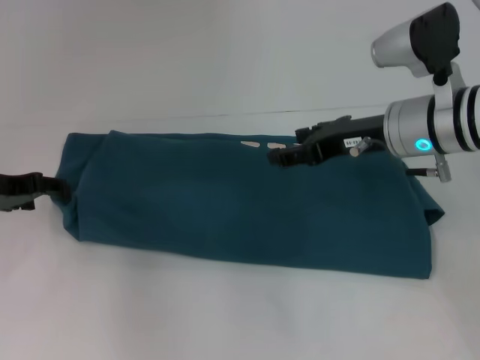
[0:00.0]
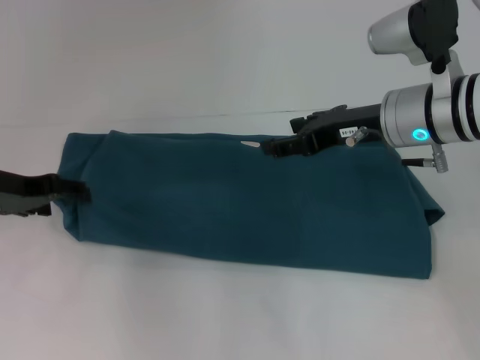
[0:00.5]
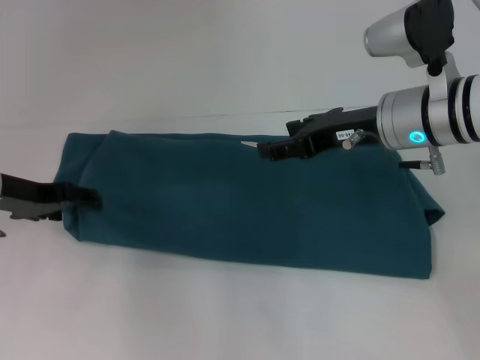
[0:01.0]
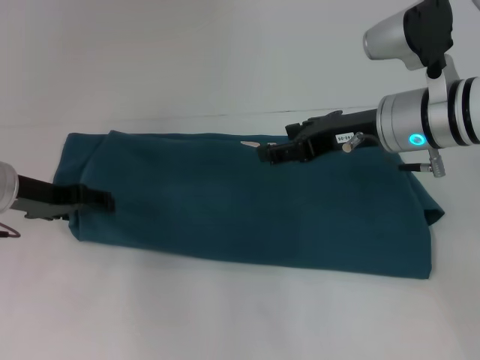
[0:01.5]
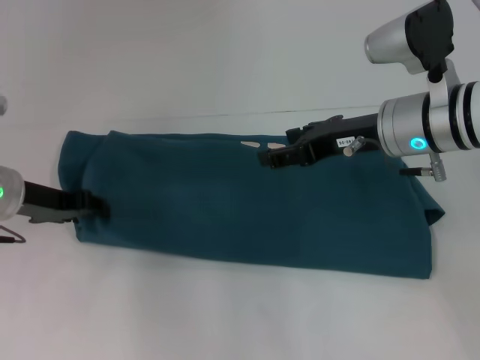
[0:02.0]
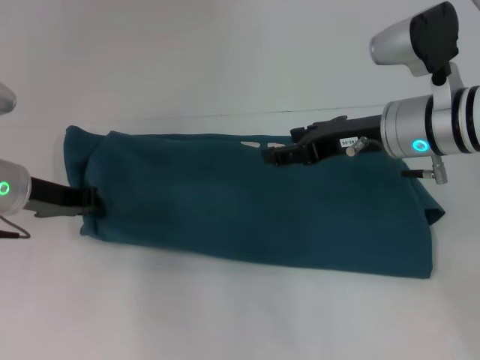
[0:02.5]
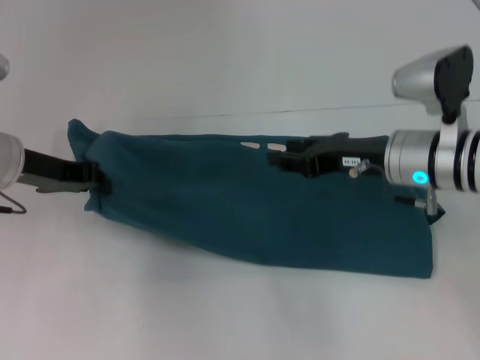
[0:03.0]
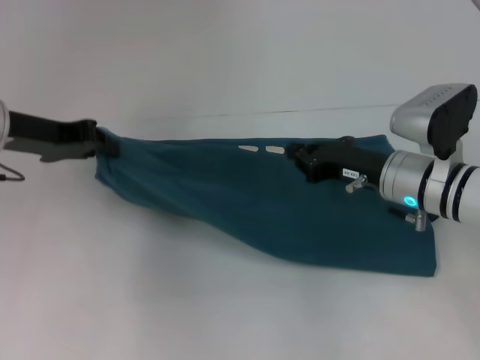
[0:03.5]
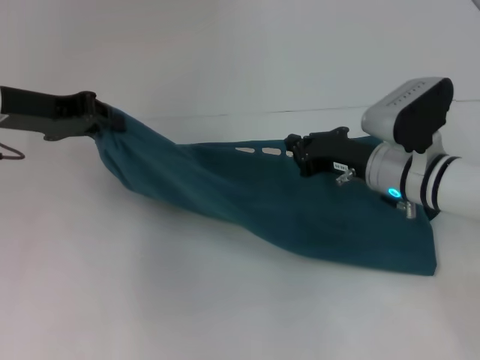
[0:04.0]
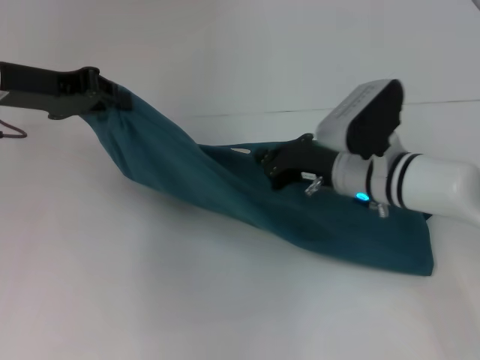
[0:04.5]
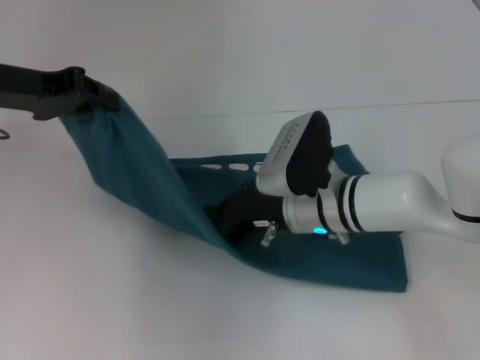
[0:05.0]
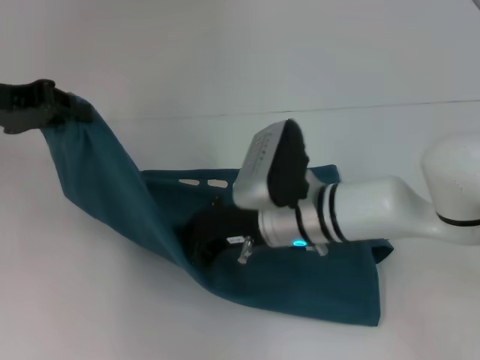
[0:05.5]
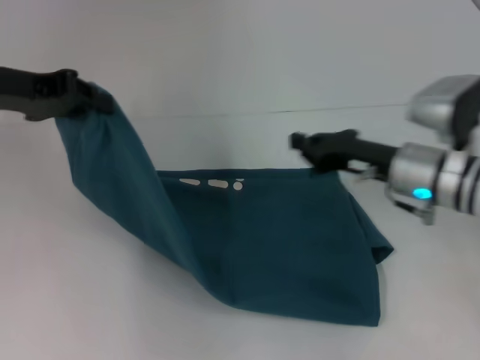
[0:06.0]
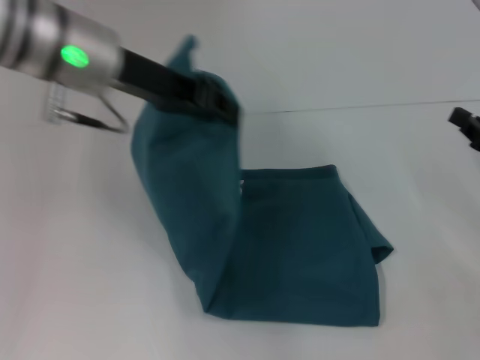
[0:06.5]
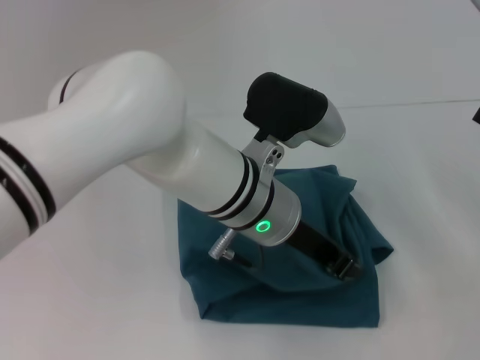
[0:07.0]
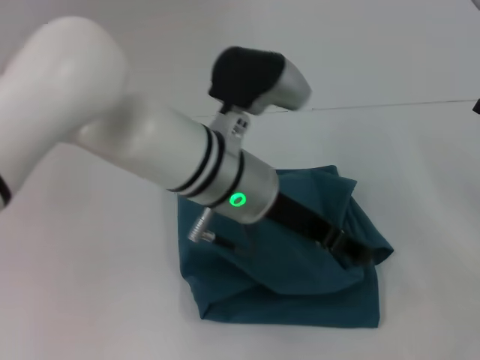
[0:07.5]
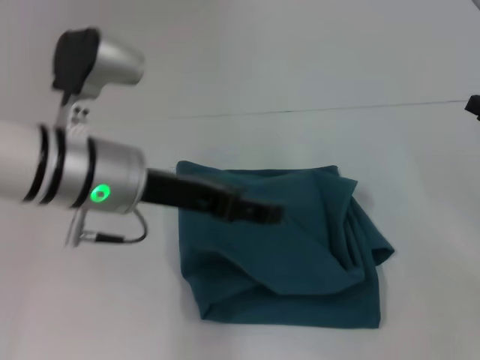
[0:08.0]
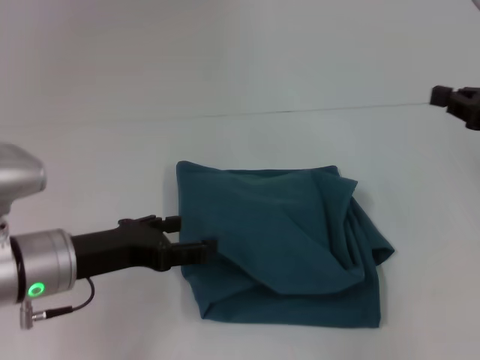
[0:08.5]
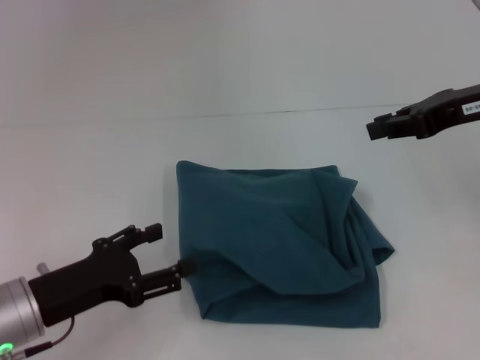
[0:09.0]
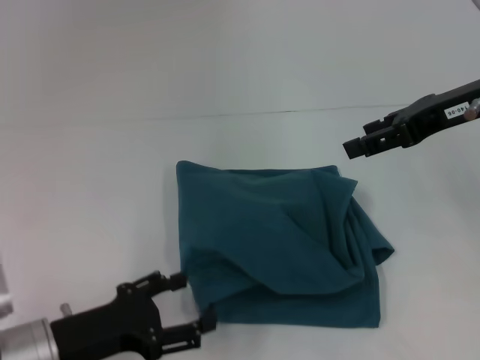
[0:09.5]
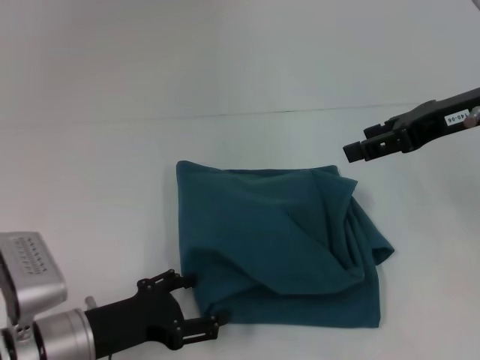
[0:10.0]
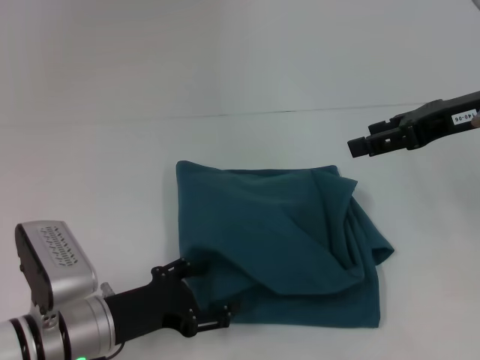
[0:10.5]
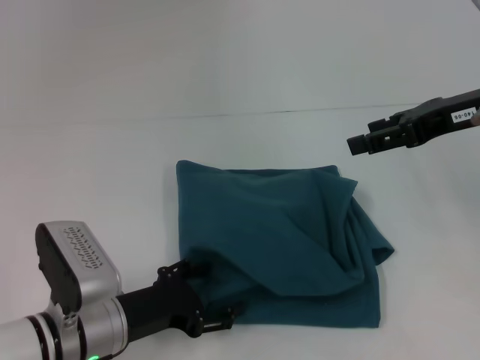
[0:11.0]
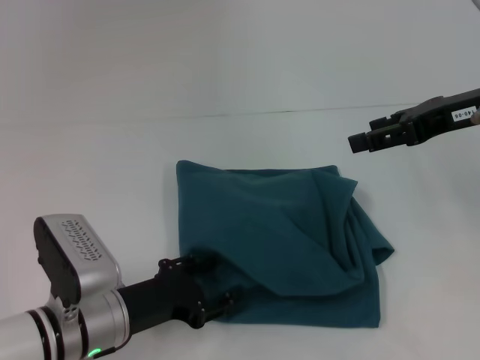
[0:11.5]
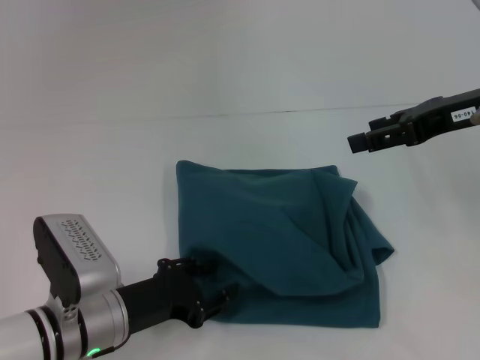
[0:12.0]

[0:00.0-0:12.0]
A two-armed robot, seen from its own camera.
Step, 0:00.0 to 0:05.0: Press the middle of the clothes with your right hand.
Step, 0:05.5 to 0:07.5: Fold the clothes to the left.
0:00.0 to 0:02.0: The grippers move only a little.
0:02.0 to 0:04.0: The left gripper heads upward, covering some 10 cm, and closes up. The right gripper heads downward, covering about 10 cm, and closes up.
0:04.0 to 0:06.0: The right gripper reaches roughly 10 cm to the left, then returns.
0:06.0 to 0:08.0: The right gripper goes about 15 cm to the right; the left gripper heads to the right and backward, covering approximately 15 cm, and opens up.
0:08.0 to 0:10.0: The left gripper heads downward, backward and to the left, covering roughly 20 cm; the right gripper is displaced upward, to the left and forward by approximately 15 cm, and opens up.
0:10.0 to 0:12.0: The left gripper closes up.

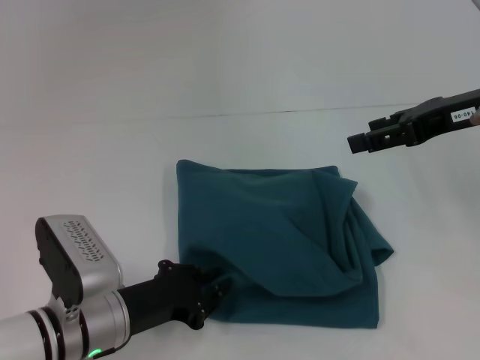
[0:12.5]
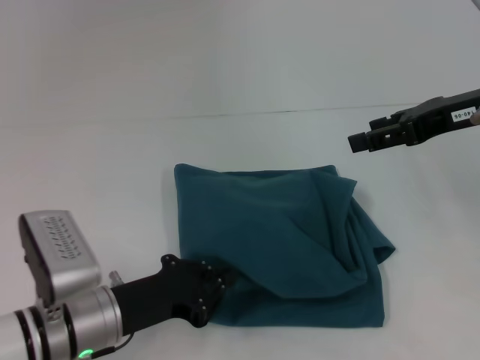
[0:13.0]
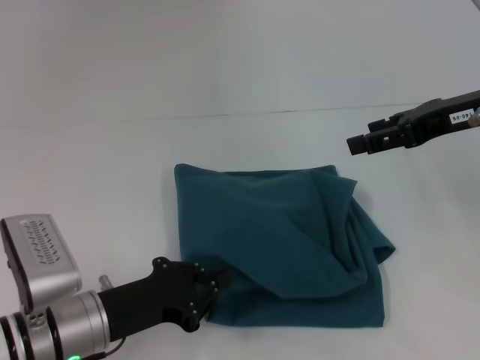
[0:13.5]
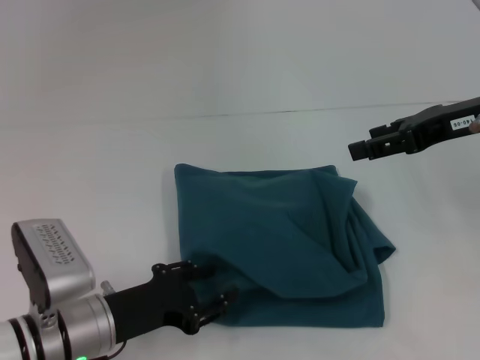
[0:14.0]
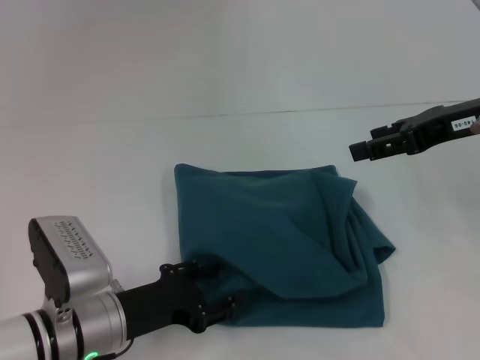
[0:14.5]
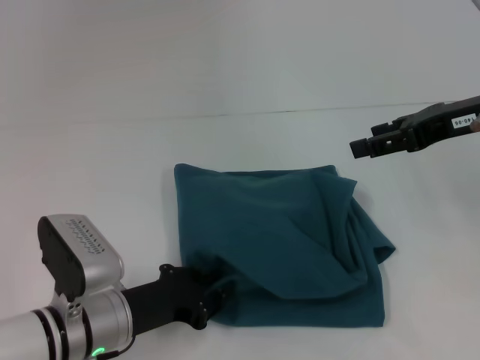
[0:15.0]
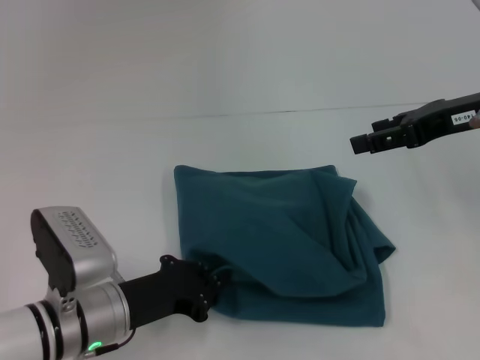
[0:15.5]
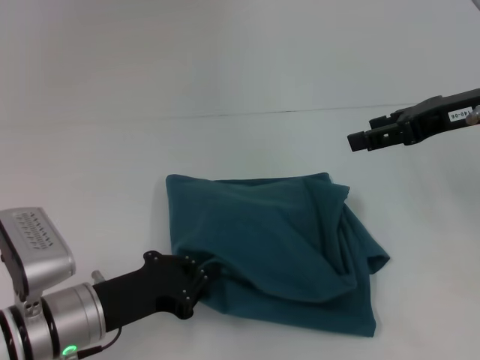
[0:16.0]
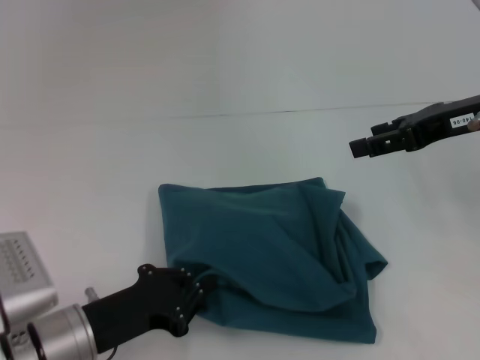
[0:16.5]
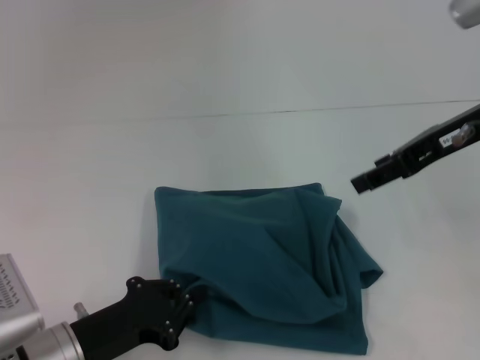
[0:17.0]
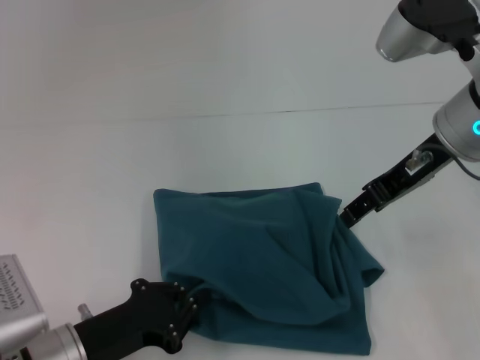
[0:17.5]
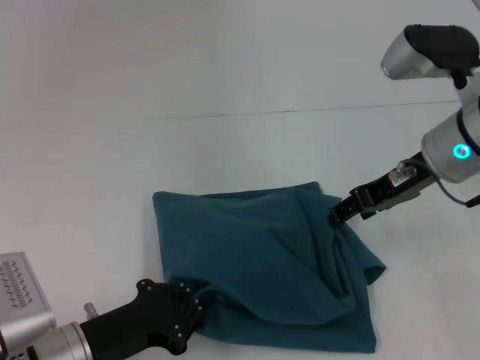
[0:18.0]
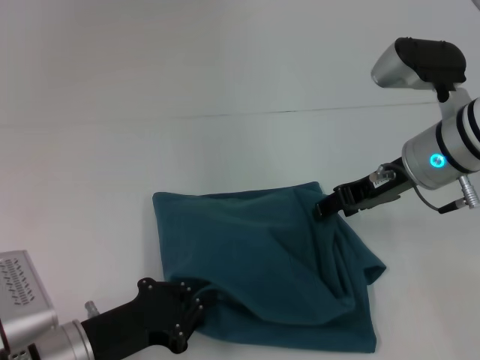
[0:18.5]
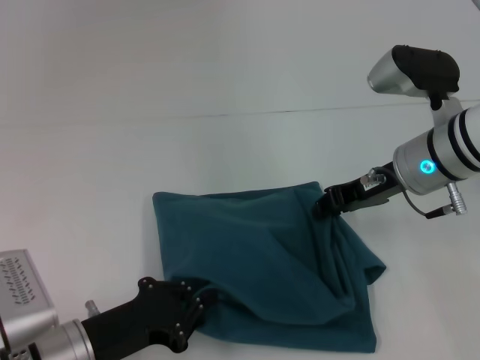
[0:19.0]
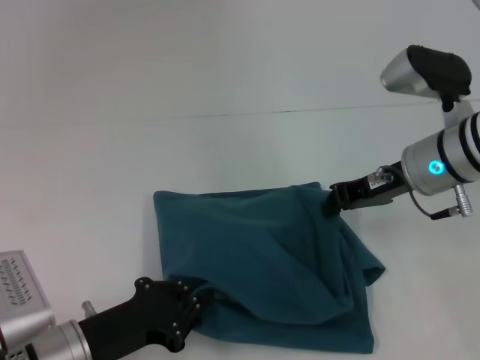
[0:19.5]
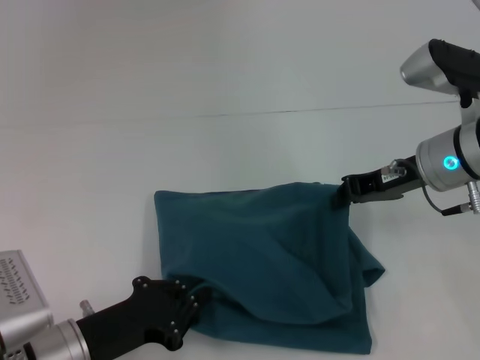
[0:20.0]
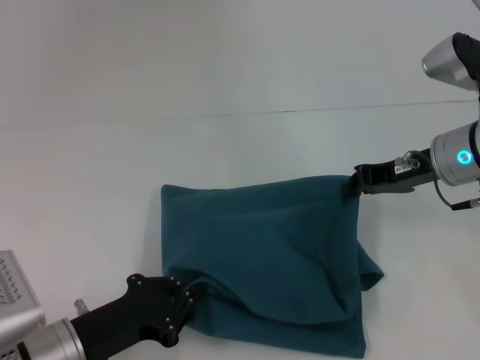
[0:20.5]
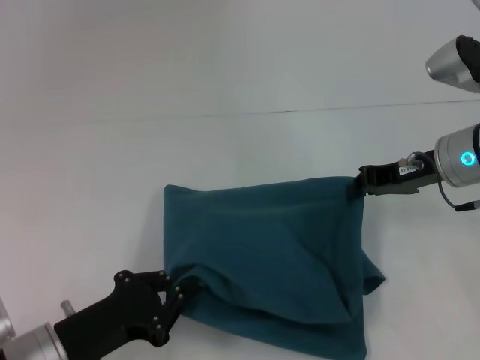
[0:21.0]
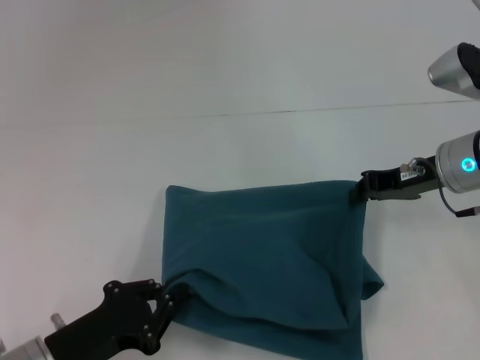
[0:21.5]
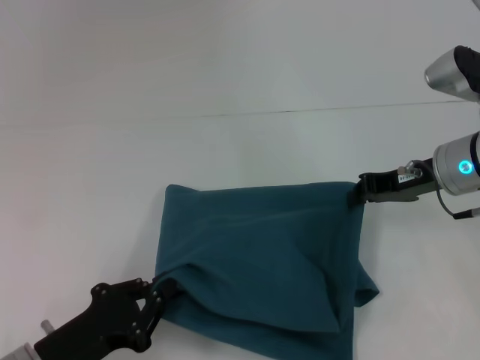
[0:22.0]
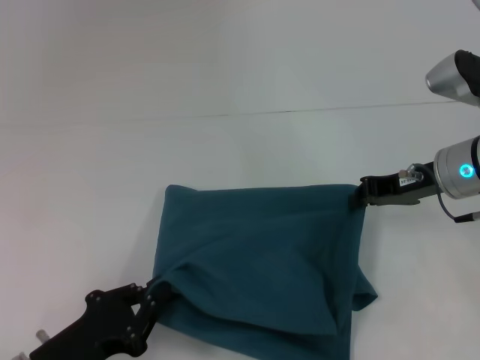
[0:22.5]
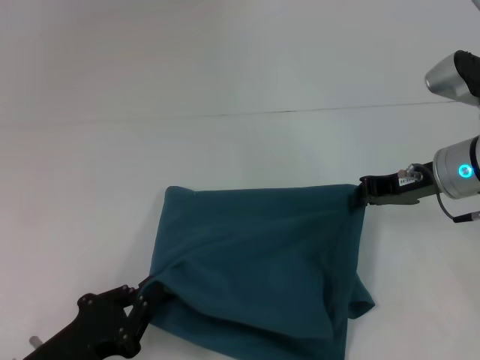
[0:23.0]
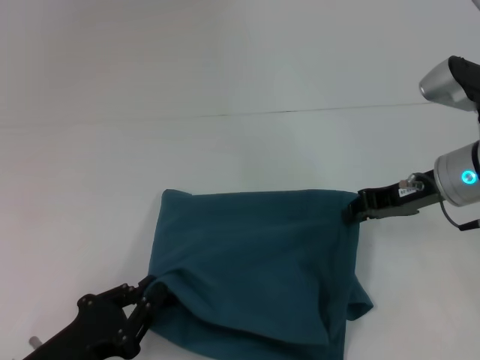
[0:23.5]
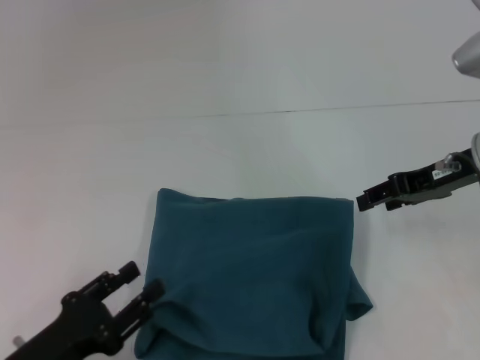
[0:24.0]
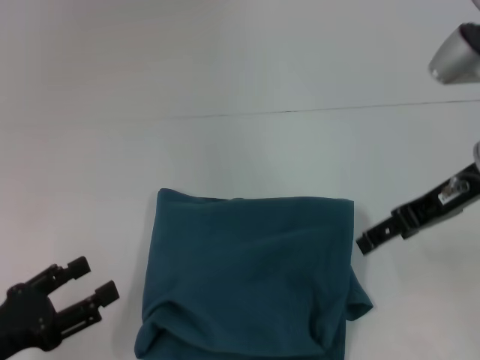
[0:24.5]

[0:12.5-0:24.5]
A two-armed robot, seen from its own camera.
0:12.5 to 0:14.5: The left gripper opens.
0:14.5 to 0:16.5: The left gripper closes its fingers.
0:16.5 to 0:18.5: The right gripper shifts some 10 cm to the left and downward.
0:18.5 to 0:20.5: The right gripper closes up.
0:20.5 to 0:22.5: The grippers stay close to where they were, moving slightly.
0:22.5 to 0:24.5: The right gripper is displaced upward by approximately 10 cm, and opens up; the left gripper goes roughly 5 cm to the left, and opens its fingers.

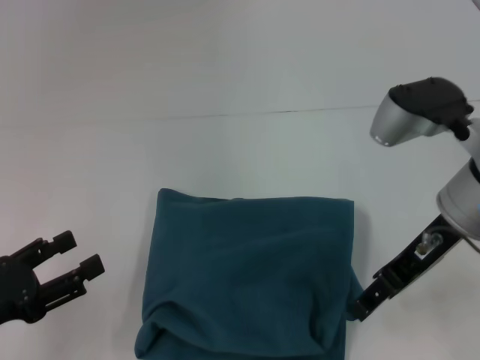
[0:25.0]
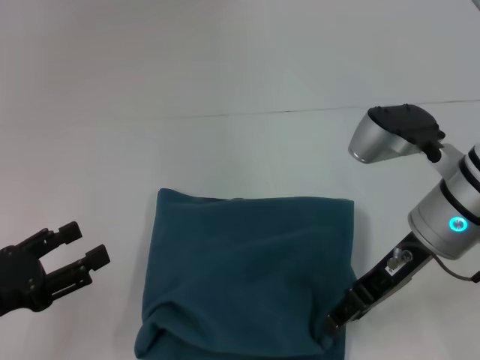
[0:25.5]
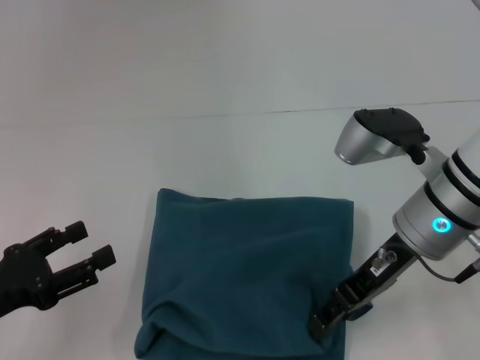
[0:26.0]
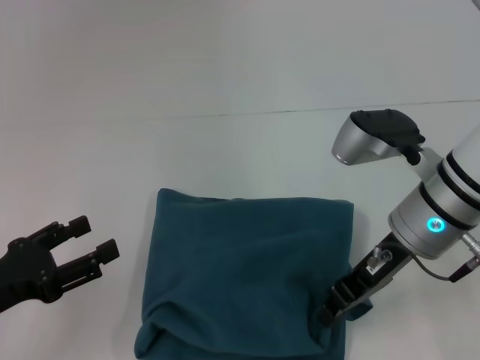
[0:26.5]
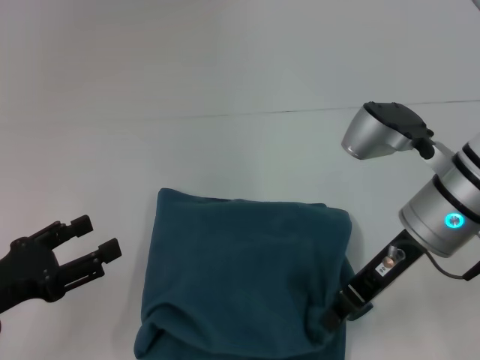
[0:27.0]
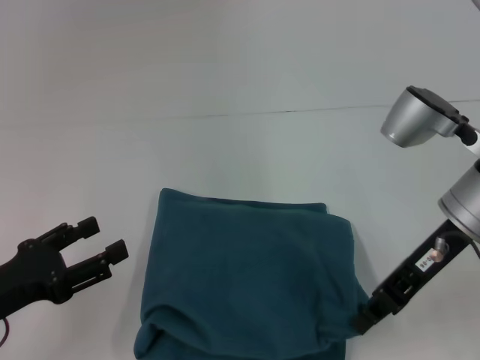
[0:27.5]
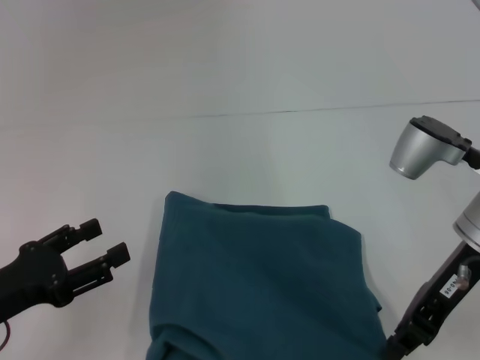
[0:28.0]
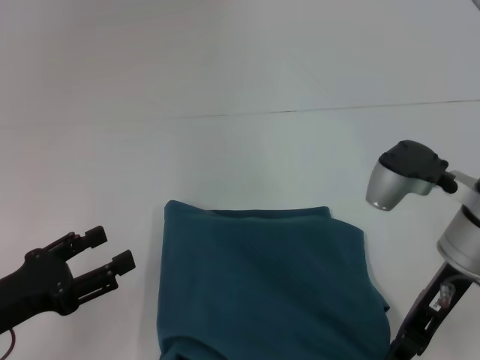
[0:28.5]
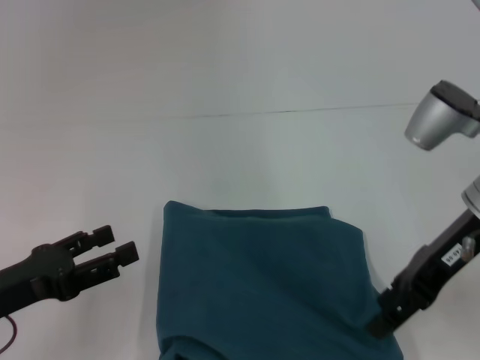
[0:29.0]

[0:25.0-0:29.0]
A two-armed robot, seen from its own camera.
0:25.0 to 0:27.0: The right gripper closes.
0:27.0 to 0:29.0: The right gripper changes place by about 5 cm, and opens up.
